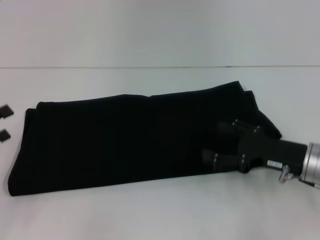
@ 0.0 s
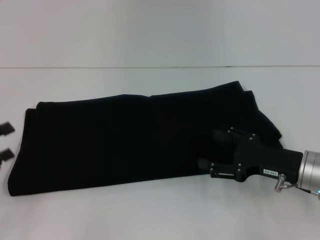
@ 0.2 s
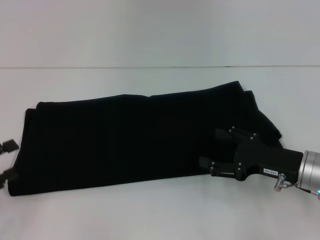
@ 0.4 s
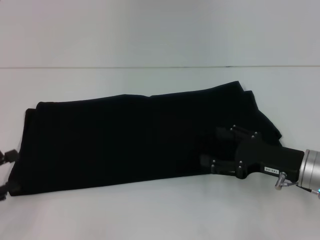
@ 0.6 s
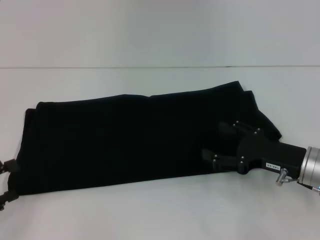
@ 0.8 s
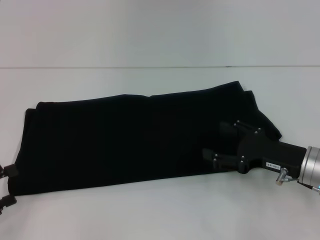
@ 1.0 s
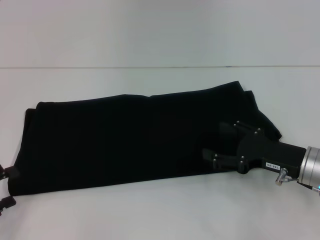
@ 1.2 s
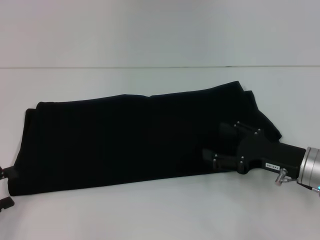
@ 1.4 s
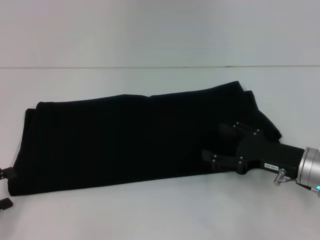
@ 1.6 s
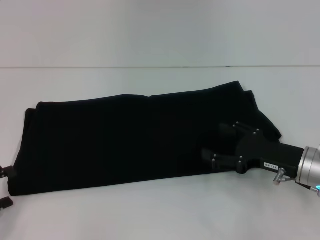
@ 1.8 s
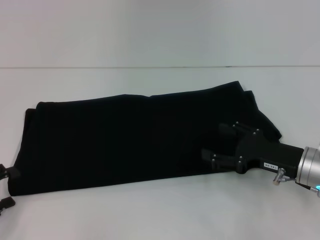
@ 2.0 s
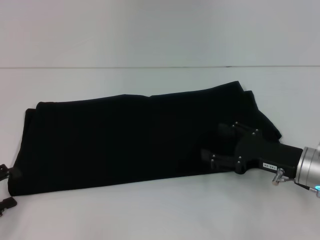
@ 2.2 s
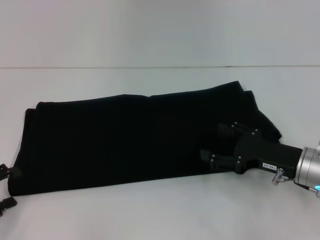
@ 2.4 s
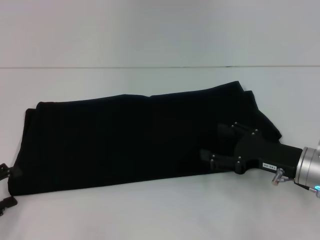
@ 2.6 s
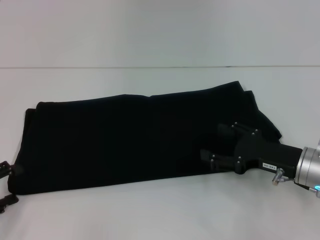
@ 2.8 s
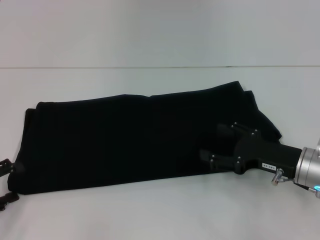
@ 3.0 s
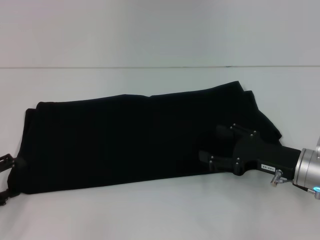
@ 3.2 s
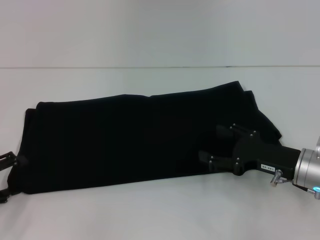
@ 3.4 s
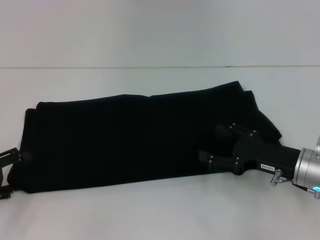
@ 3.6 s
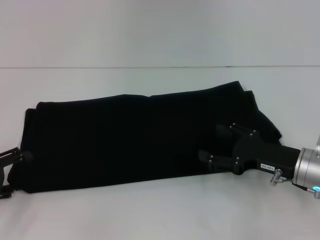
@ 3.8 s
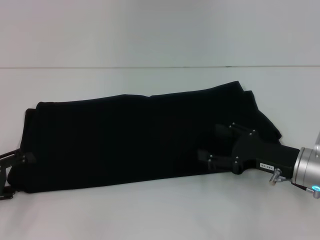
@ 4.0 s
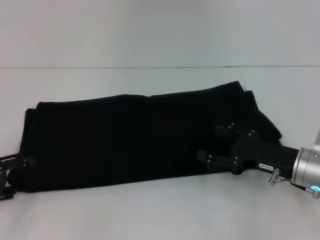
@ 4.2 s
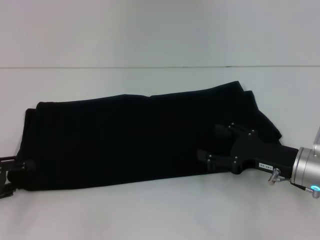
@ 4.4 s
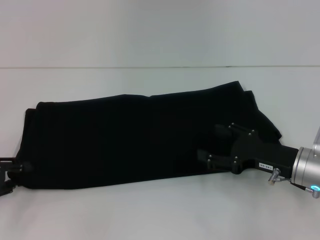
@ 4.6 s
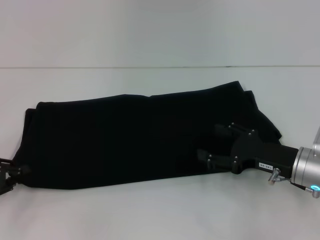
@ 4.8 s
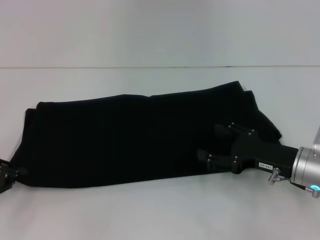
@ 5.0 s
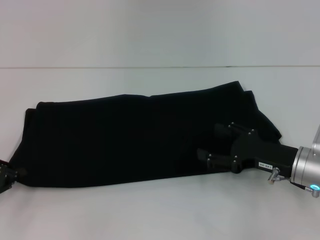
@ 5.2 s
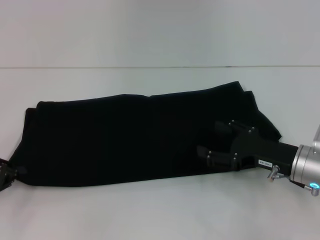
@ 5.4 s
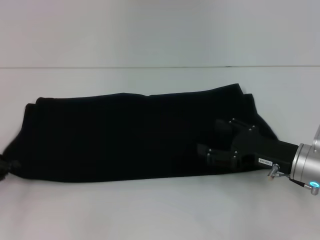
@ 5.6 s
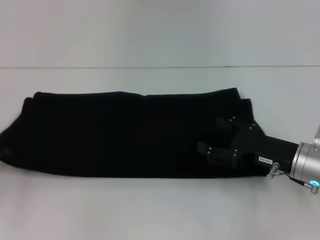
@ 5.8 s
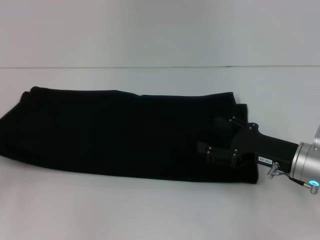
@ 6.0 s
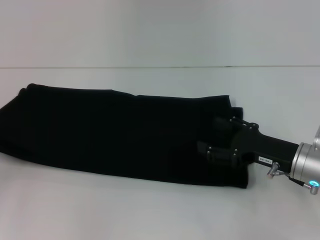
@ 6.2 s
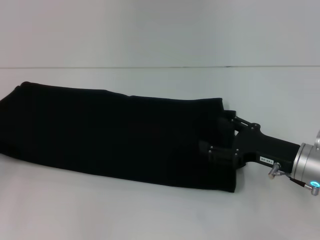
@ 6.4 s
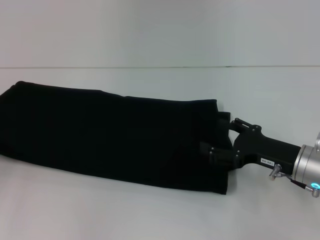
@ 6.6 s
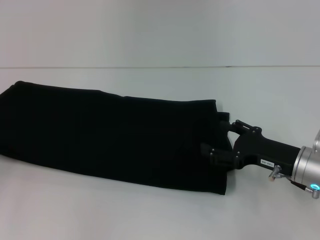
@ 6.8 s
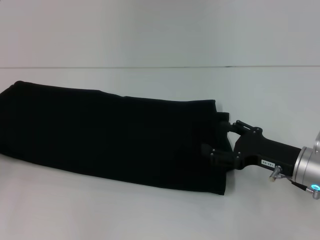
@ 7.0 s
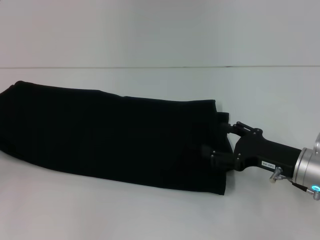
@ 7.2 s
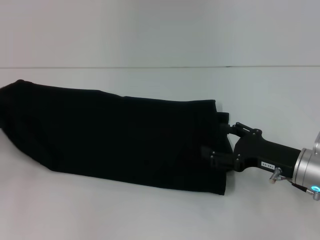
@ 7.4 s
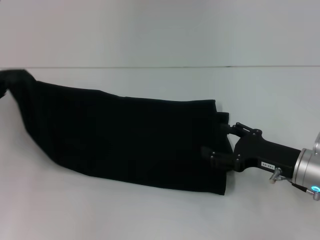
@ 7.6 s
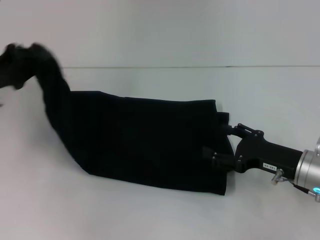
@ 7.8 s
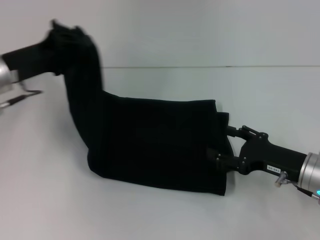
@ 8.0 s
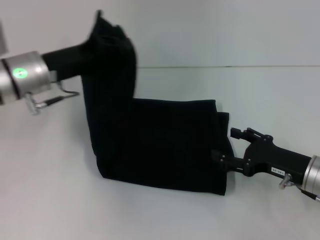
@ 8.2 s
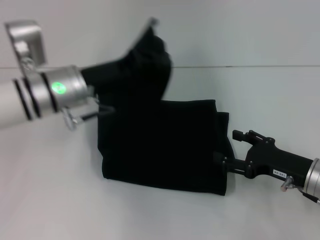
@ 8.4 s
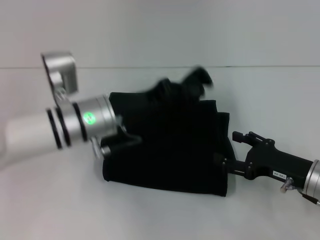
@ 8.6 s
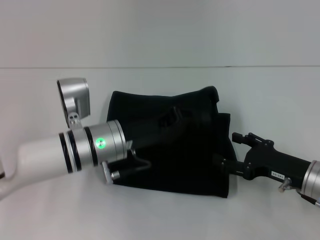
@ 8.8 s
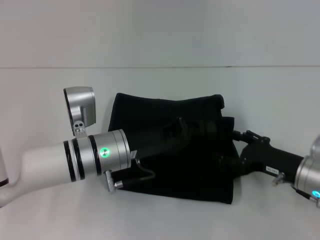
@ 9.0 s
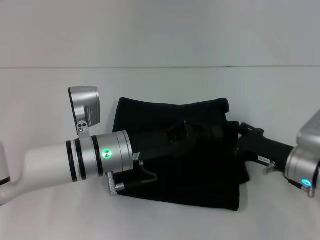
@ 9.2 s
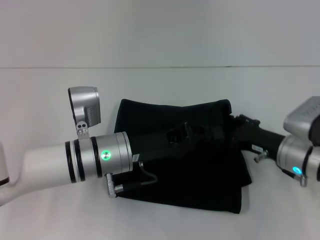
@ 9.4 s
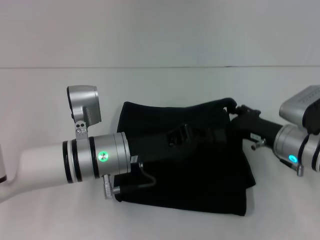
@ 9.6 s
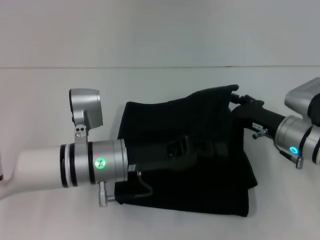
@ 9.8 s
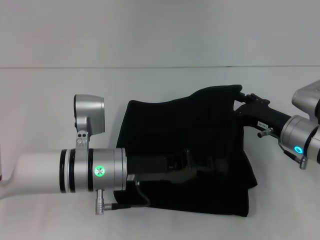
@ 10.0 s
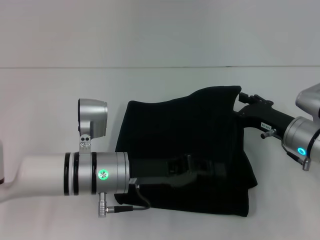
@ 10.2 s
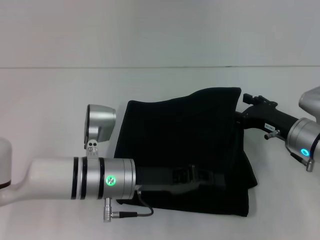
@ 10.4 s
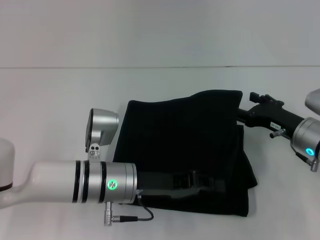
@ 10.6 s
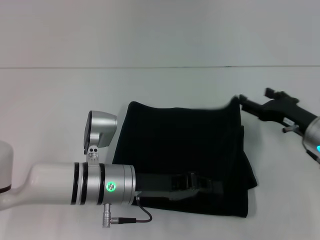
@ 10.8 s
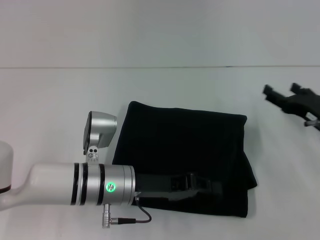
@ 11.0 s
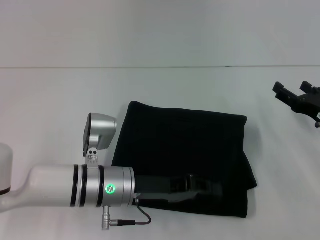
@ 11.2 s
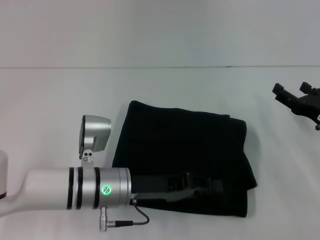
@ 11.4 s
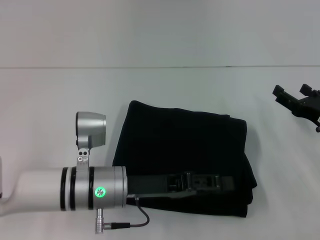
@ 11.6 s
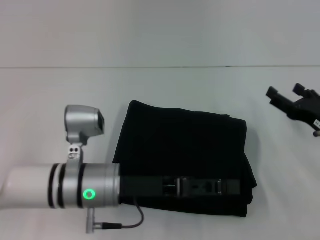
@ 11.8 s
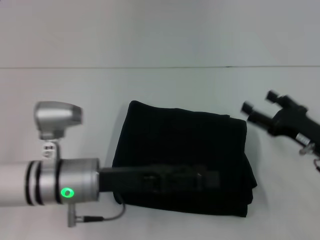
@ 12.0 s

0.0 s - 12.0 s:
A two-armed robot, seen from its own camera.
Step, 0.0 s - 11.8 s: Fold the clothes with your left hand.
0.0 s - 1.6 s: The left gripper changes place by about 5 cm.
1.6 s - 4.4 s: The grippers stay close to where they were, moving slightly.
4.4 s - 6.0 s: The left gripper closes up.
6.0 s - 7.6 s: The left gripper moves approximately 5 cm.
7.6 s - 9.0 s: The left gripper goes some 25 cm to the right.
9.0 s - 10.4 s: The right gripper travels forward by roughly 5 cm.
10.4 s - 12.0 s: The right gripper changes place by some 5 cm, while the left gripper ends up roughly 5 cm from where it was, and opens its fingers.

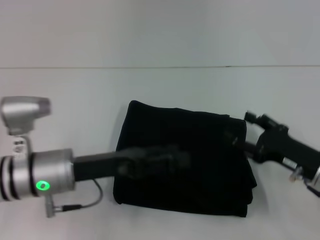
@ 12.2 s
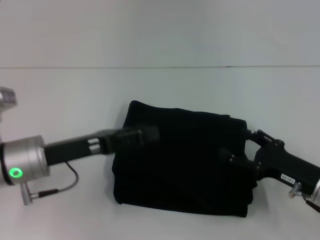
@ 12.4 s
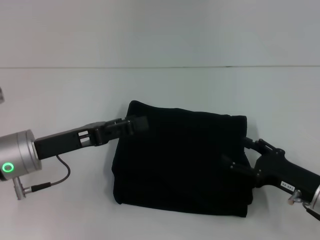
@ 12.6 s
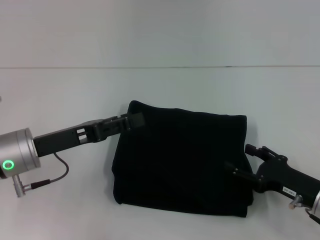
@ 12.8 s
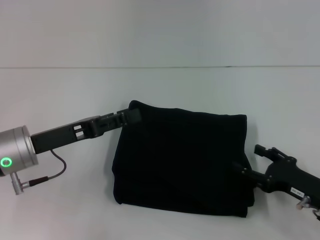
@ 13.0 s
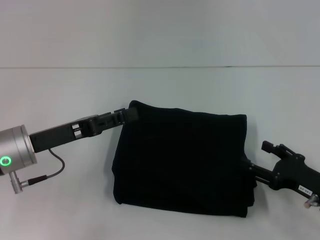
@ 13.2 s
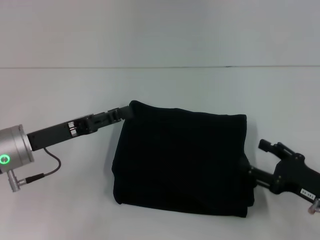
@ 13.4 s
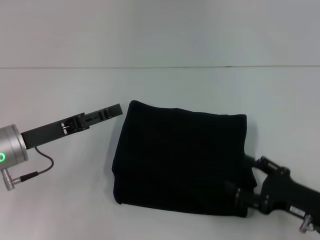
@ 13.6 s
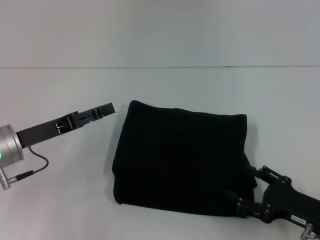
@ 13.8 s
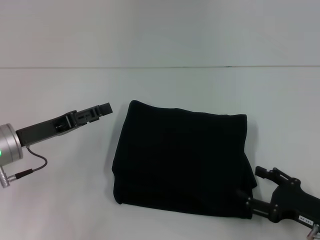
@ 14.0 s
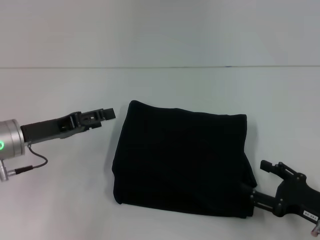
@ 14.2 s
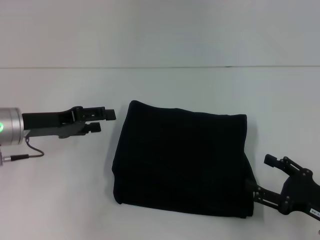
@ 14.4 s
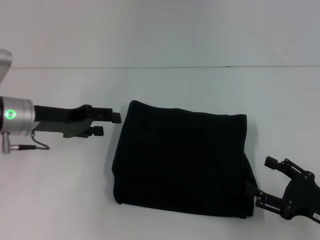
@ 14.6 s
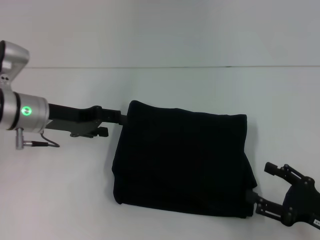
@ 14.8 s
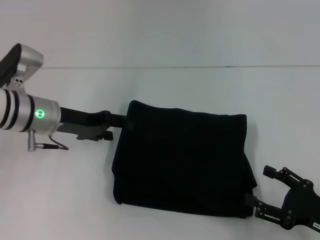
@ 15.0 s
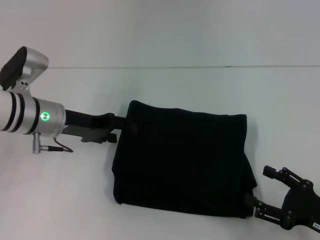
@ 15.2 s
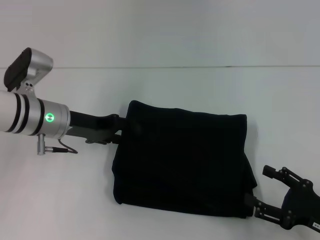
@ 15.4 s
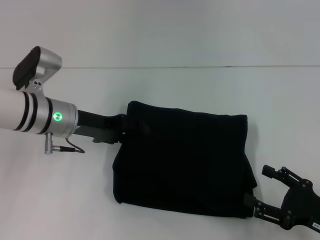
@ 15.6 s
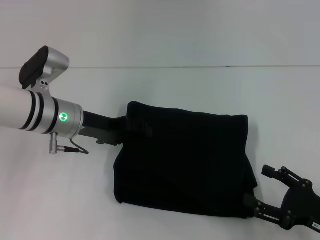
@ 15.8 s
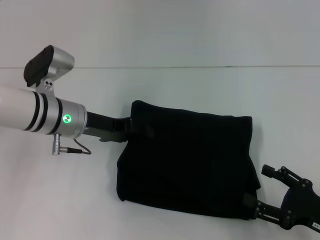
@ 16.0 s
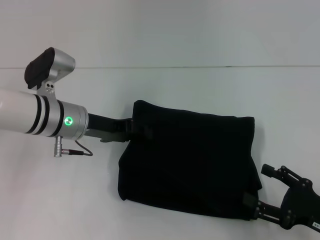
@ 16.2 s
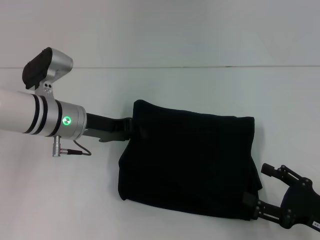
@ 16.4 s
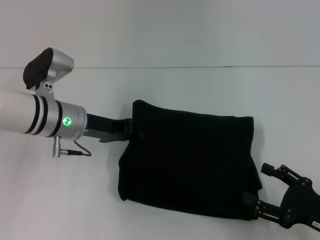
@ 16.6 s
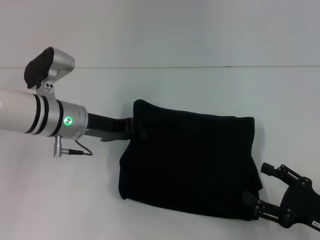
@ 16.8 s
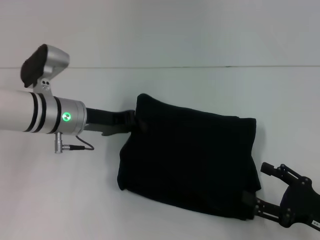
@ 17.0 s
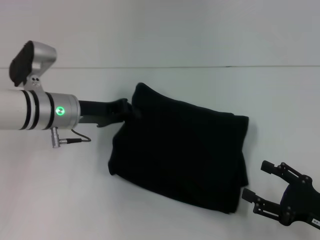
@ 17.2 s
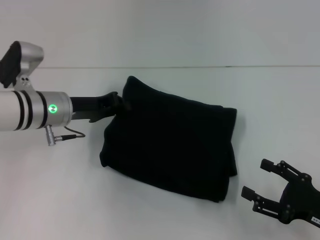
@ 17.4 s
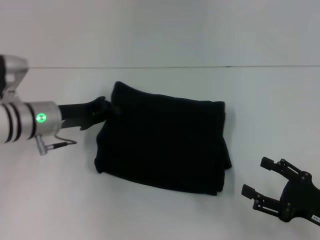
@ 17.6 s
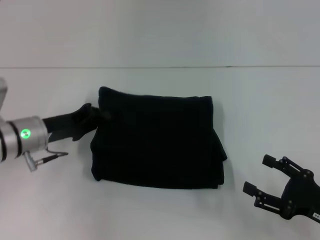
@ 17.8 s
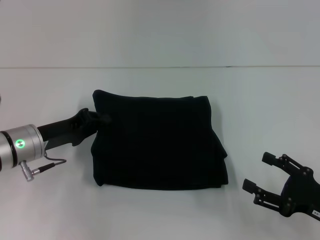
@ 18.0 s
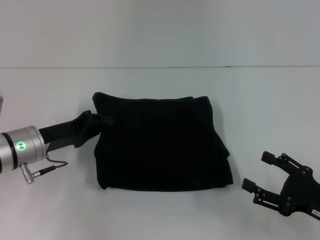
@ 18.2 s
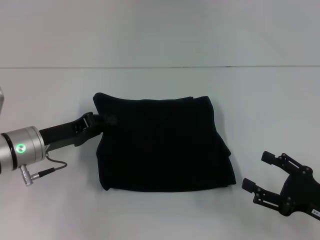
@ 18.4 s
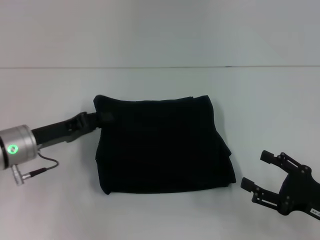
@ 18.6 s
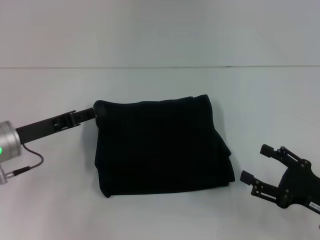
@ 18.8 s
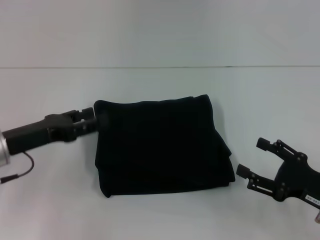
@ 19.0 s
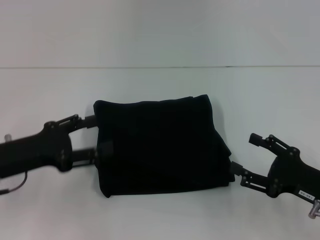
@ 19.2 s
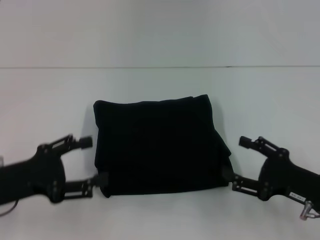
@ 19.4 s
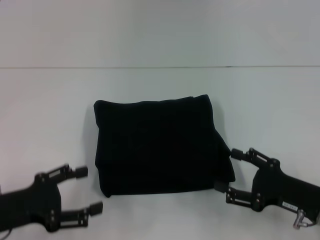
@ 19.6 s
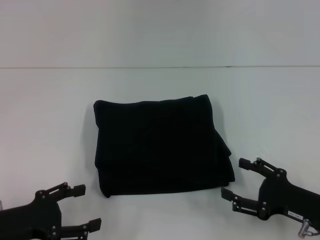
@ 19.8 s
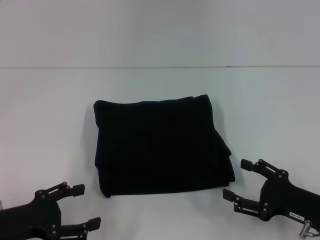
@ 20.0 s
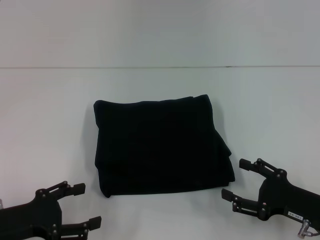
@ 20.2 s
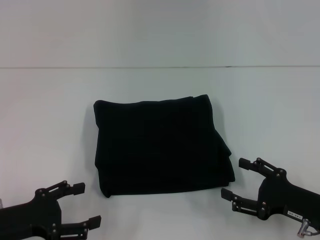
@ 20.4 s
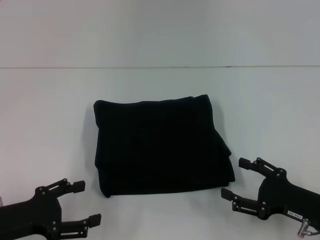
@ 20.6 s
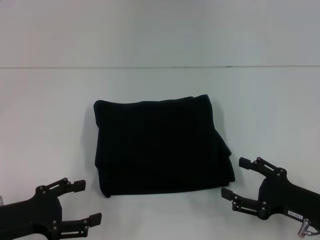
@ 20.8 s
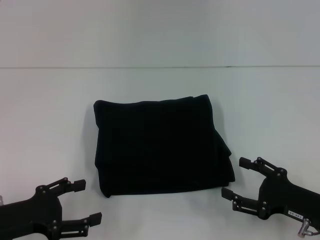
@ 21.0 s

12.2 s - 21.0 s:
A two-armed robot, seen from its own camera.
12.2 s - 13.6 s: The right gripper moves backward, approximately 5 cm. Meanwhile the left gripper shifts some 5 cm to the left.
13.6 s - 15.2 s: The left gripper goes approximately 5 cm forward.
15.2 s - 16.6 s: The left gripper closes up.
16.6 s - 18.0 s: The left gripper is displaced to the left by approximately 5 cm.
18.0 s - 19.6 s: The left gripper is displaced backward by about 10 cm, and opens.
19.6 s - 21.0 s: The grippers move only a little.
